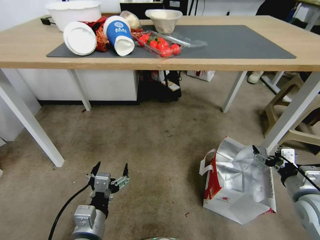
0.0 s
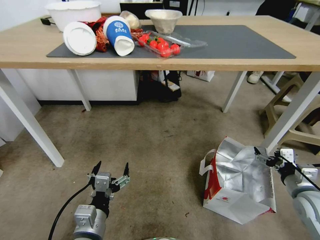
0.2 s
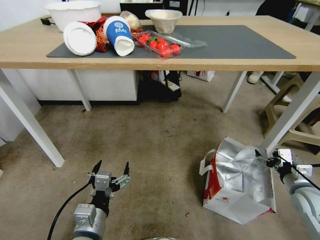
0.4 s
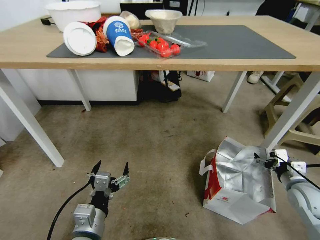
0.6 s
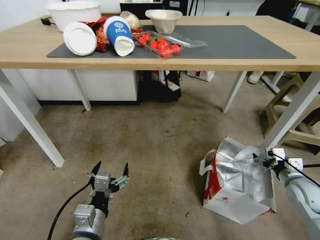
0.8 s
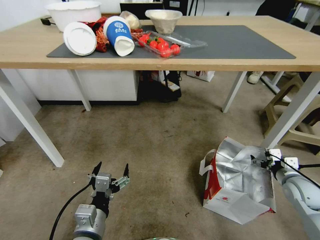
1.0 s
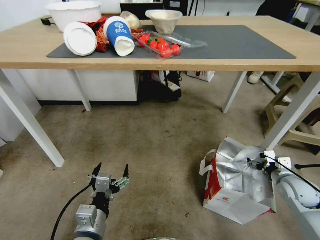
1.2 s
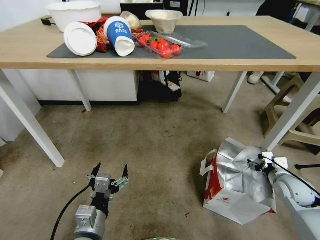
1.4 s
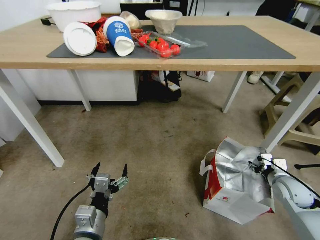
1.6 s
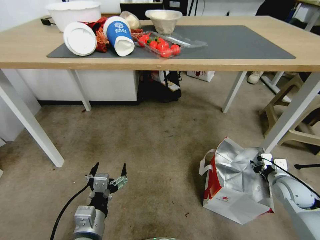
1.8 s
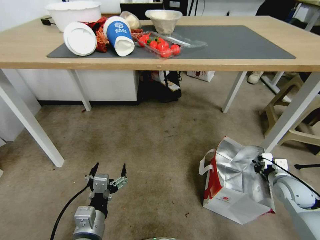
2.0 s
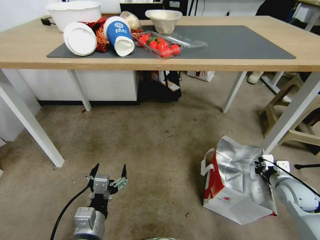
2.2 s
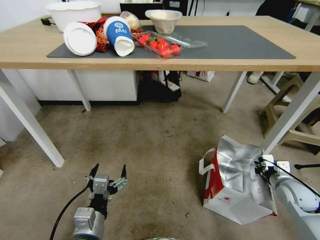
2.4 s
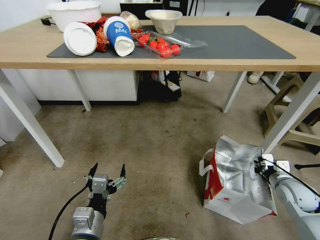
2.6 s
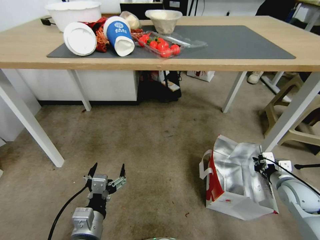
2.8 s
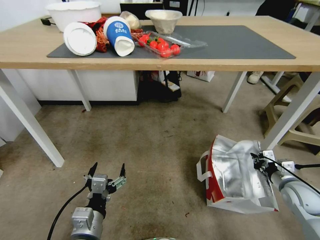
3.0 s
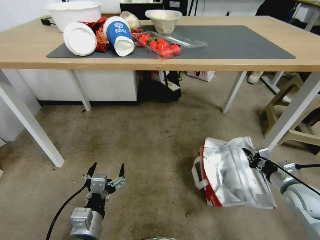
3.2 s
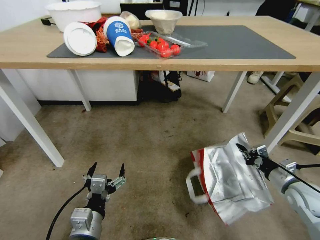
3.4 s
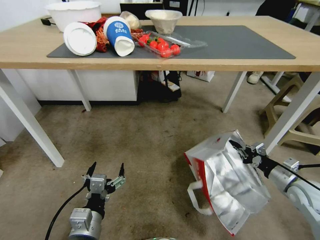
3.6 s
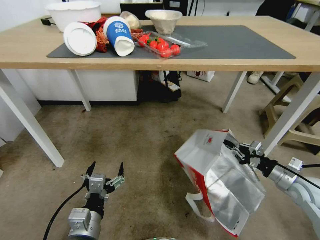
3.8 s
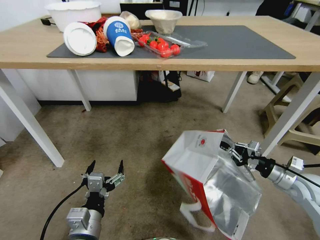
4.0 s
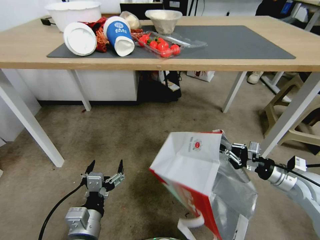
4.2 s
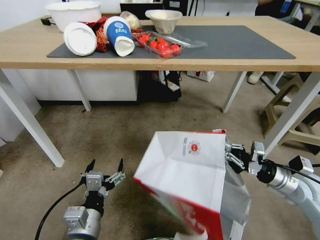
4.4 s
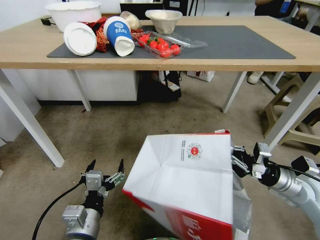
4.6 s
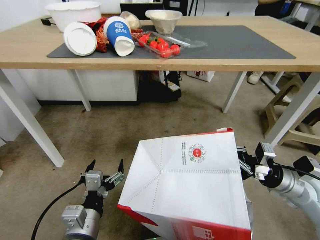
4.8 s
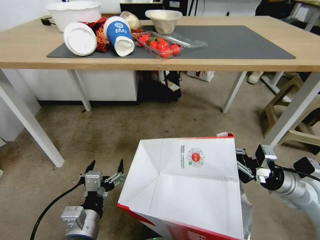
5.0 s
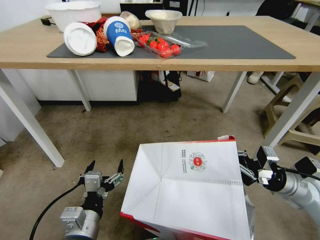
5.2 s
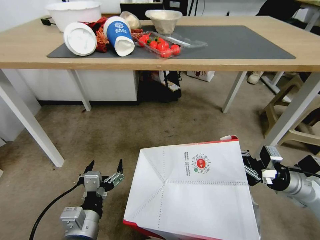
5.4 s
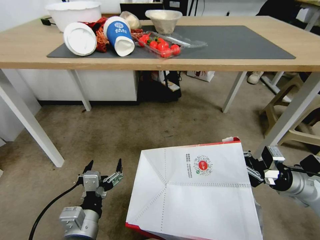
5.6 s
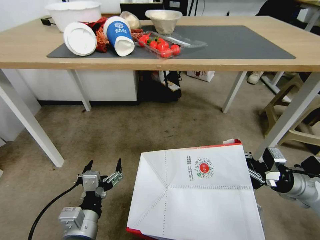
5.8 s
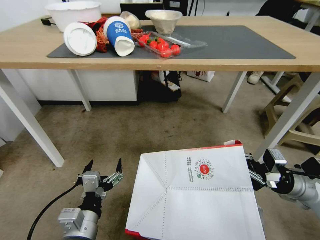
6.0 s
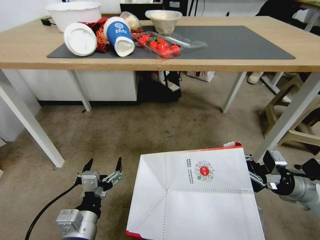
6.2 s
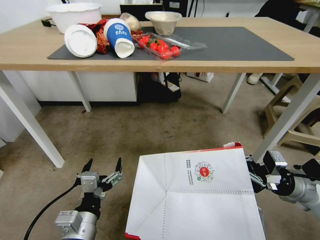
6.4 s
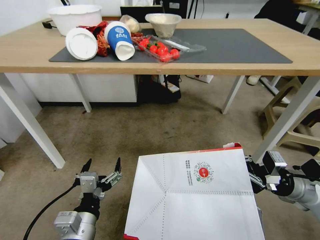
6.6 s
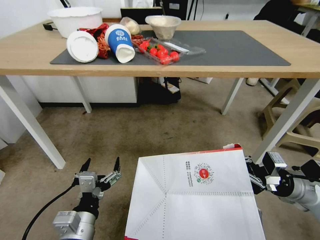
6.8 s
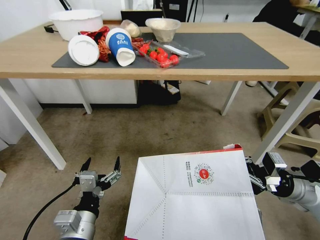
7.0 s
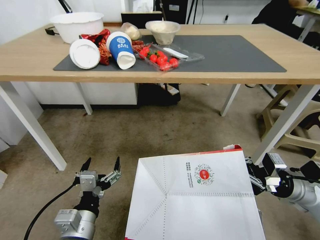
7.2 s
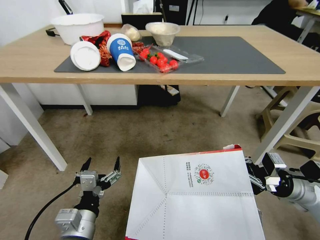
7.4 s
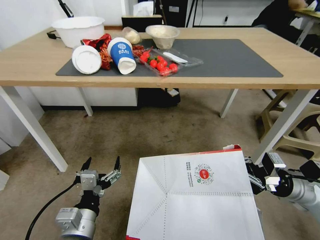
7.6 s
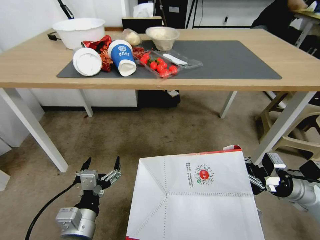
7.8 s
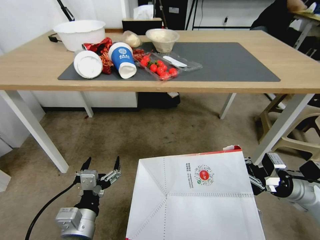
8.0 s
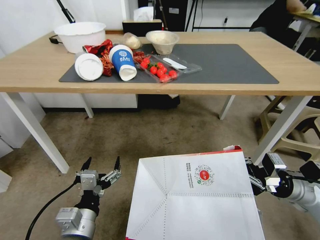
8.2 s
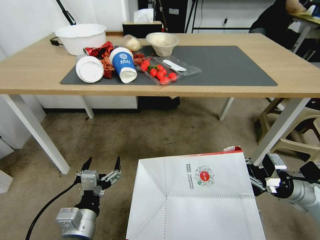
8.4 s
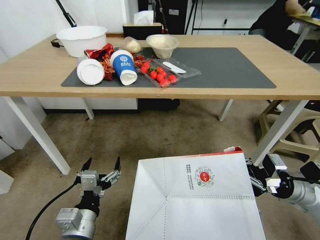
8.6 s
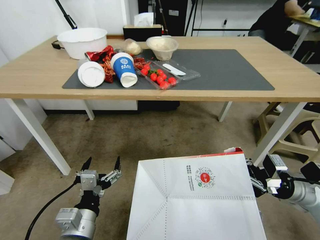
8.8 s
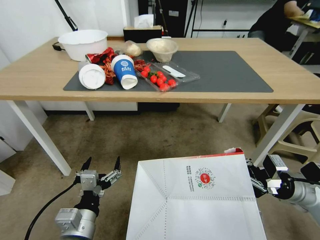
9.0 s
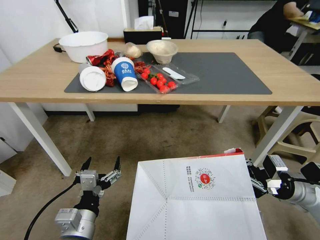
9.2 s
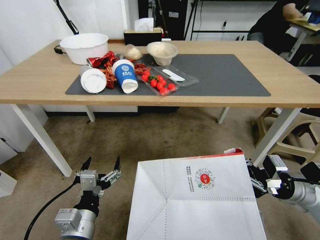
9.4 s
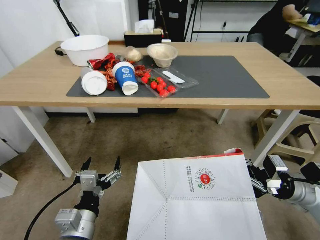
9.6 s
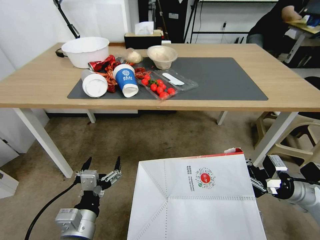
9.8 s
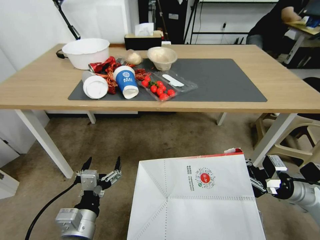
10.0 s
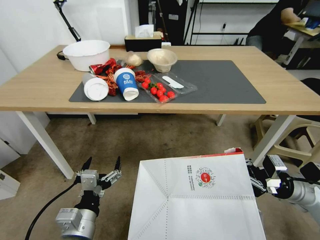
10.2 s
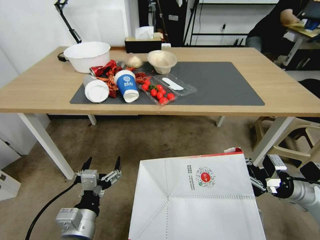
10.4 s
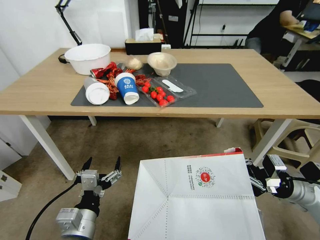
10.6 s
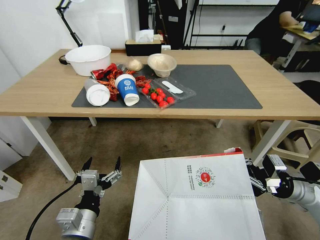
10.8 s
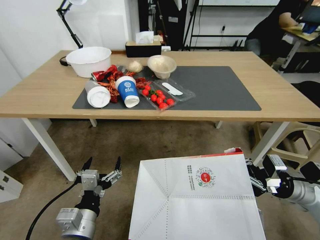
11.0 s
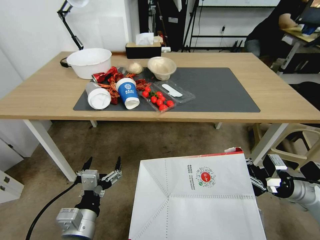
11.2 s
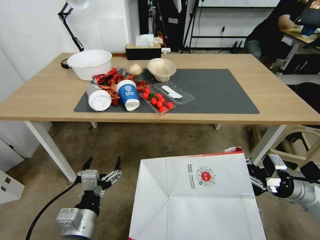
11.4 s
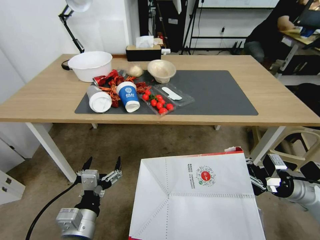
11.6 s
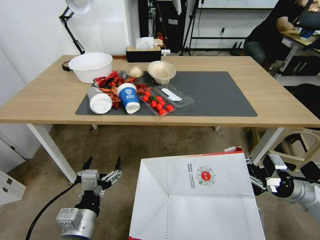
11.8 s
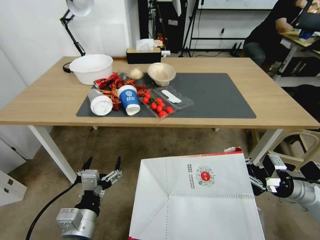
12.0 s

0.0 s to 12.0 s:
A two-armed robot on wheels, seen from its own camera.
Task of the whole recording: Pick up the food delivery bag from the floor and place it on the table.
0.0 to 1.6 s: The right gripper shifts roughly 10 cm forward and downward, and closes its fingers.
1.6 to 3.0 s: The right gripper closes up.
3.0 to 4.4 s: The right gripper goes roughly 10 cm upward.

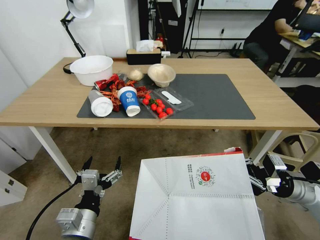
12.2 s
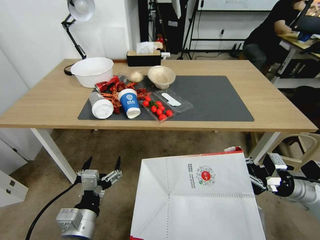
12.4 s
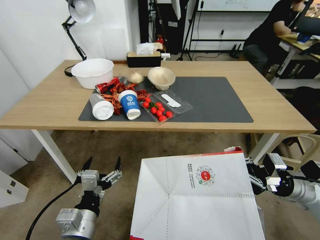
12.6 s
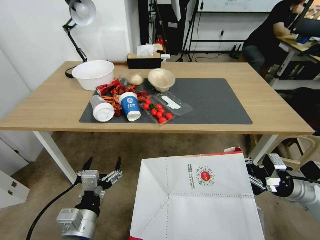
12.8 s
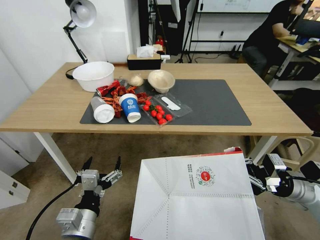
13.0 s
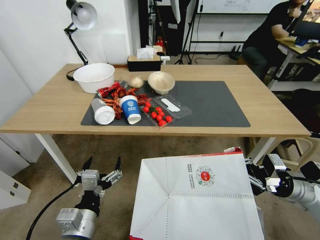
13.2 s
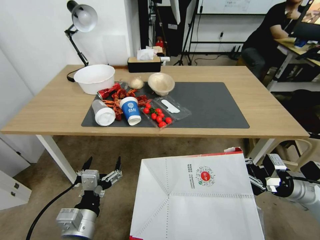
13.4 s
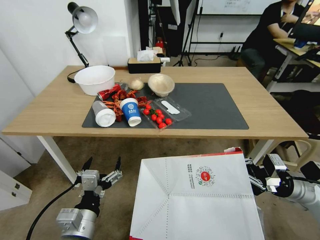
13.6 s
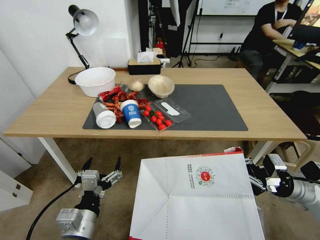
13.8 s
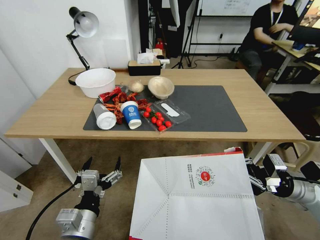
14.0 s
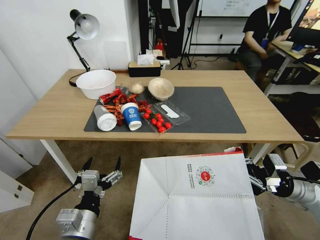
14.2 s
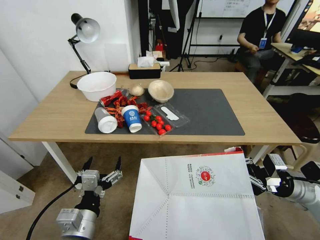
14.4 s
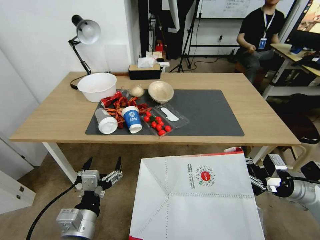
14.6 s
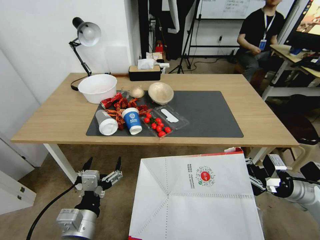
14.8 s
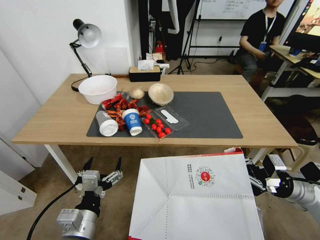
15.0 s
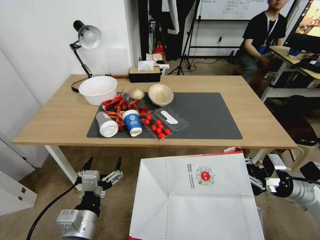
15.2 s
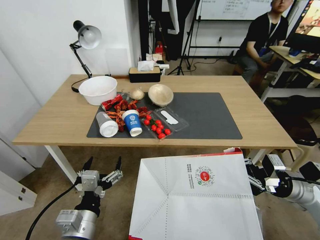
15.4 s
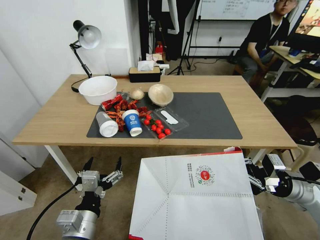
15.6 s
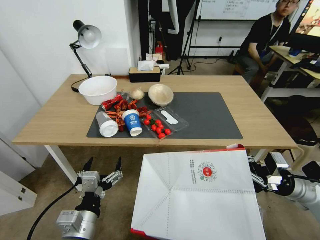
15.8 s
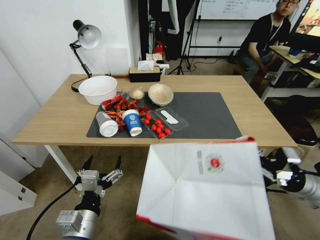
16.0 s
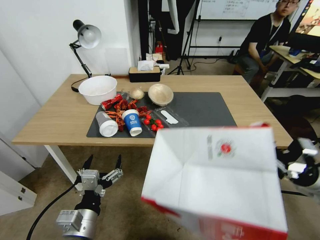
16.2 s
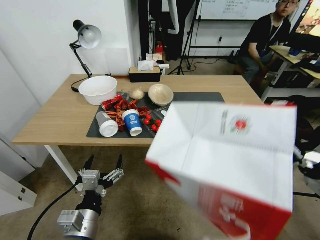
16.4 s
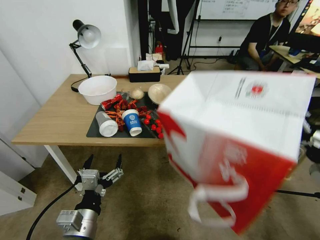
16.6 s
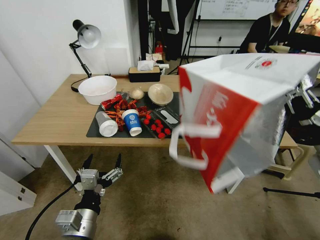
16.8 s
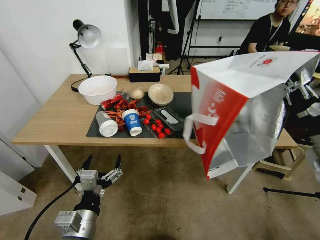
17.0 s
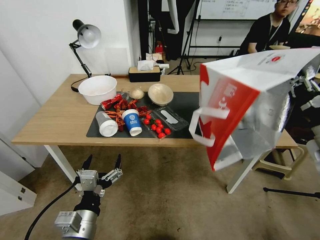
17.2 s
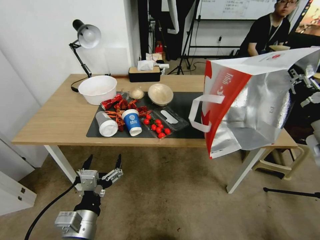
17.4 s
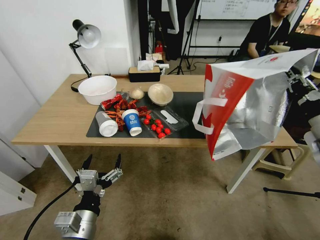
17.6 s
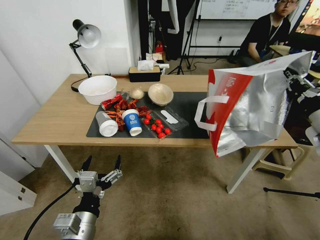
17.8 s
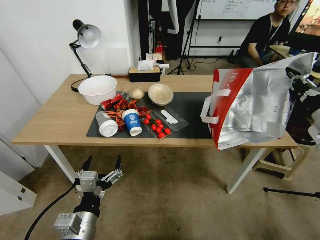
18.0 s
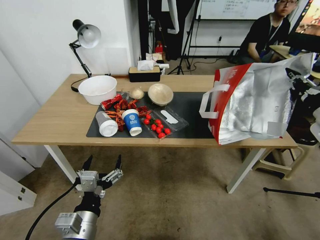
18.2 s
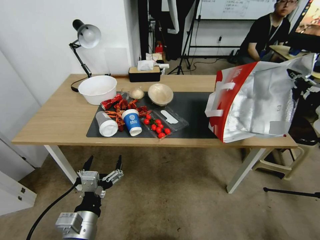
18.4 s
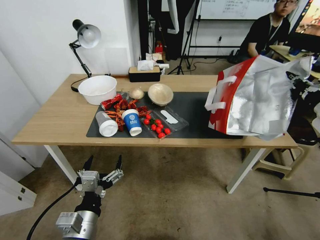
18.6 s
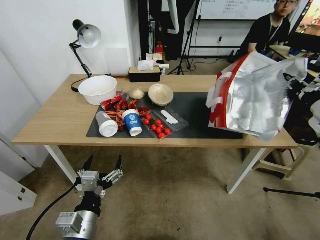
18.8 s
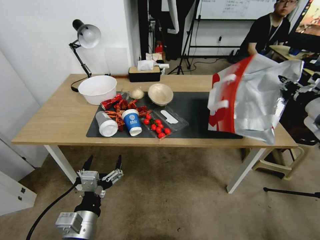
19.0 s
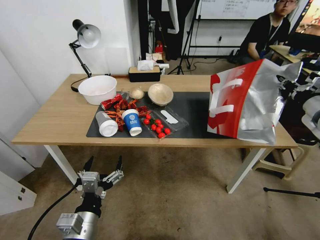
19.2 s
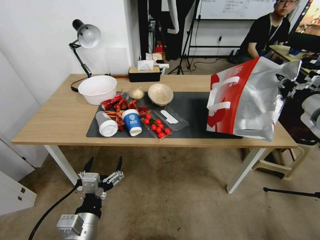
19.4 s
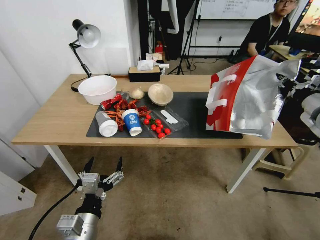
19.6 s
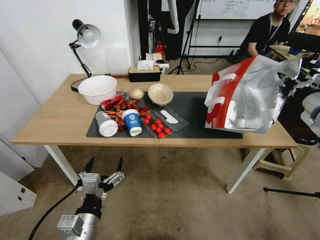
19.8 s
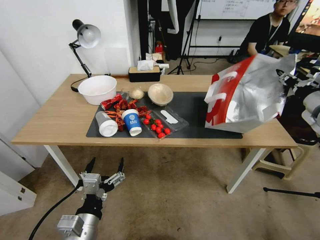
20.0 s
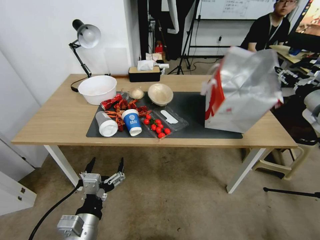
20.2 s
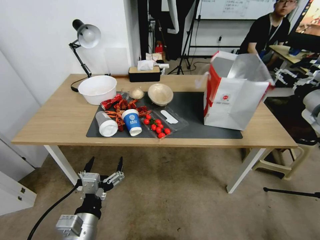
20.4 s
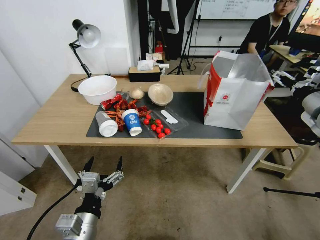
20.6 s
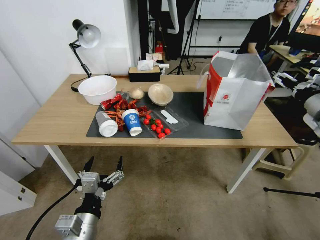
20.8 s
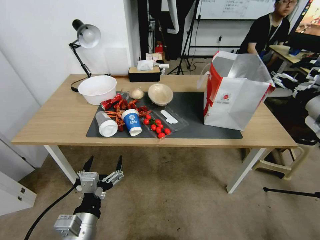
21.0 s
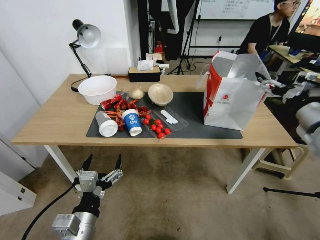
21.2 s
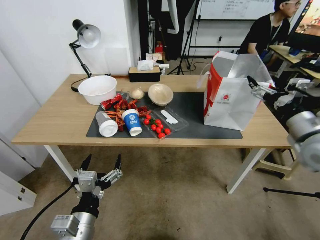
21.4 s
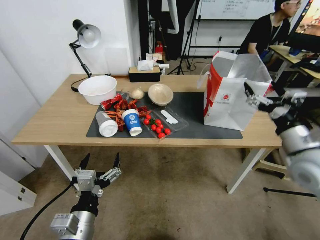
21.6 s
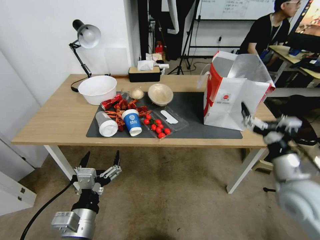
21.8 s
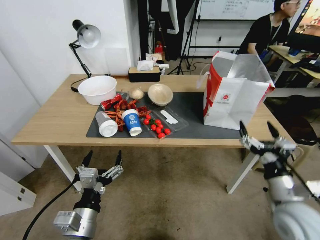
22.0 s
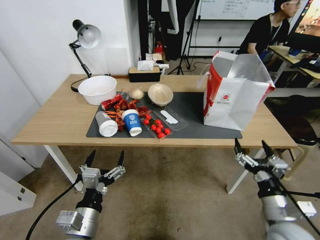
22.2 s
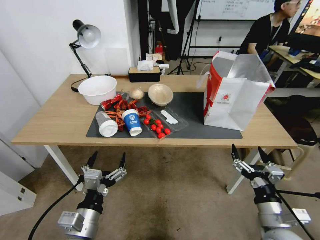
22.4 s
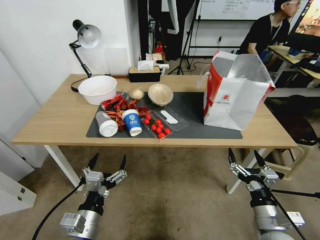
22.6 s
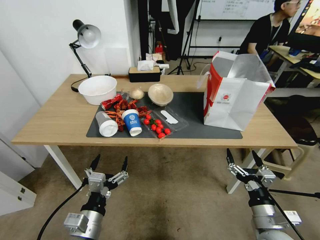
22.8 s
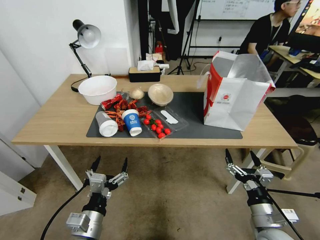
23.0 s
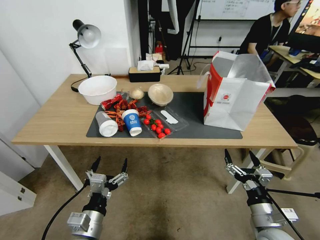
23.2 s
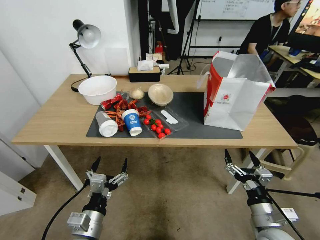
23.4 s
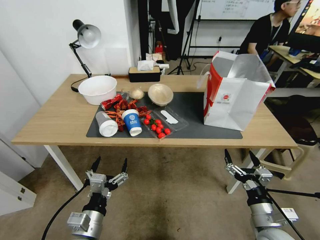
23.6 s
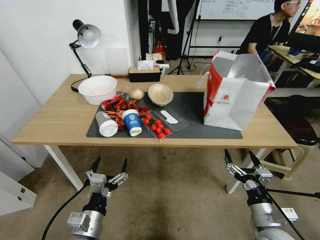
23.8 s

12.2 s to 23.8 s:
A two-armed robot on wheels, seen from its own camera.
Task of the whole recording: Pick up the food delivery bag from the floor and place it on the table.
15.0 to 16.6 s: The right gripper travels upward by about 10 cm.
16.6 to 18.0 s: The right gripper goes approximately 10 cm forward.
18.0 to 19.4 s: The right gripper goes some 5 cm forward.
19.4 to 21.0 s: The right gripper opens its fingers.
21.0 to 22.4 s: The right gripper goes roughly 35 cm downward, backward and to the left.
22.4 to 23.8 s: The grippers move only a little.
